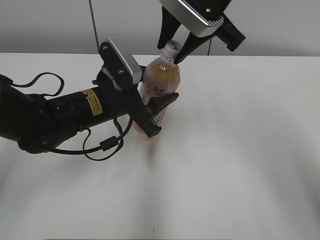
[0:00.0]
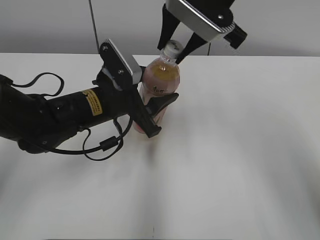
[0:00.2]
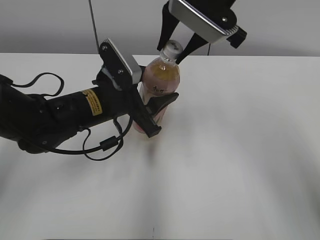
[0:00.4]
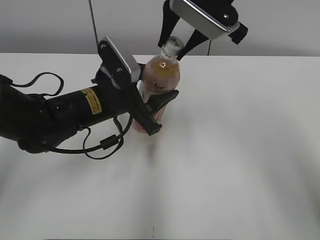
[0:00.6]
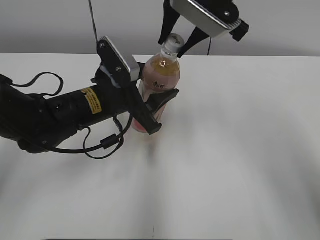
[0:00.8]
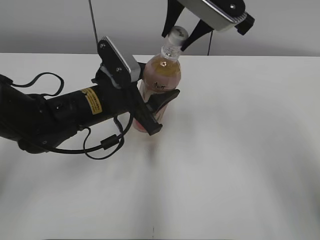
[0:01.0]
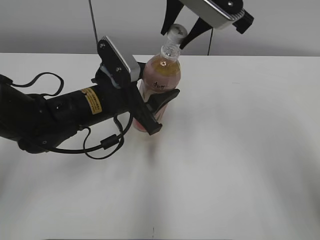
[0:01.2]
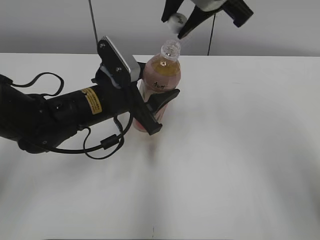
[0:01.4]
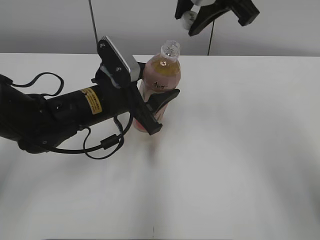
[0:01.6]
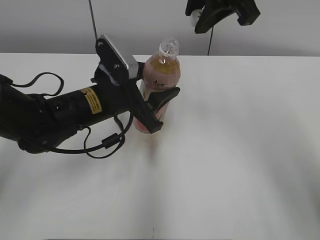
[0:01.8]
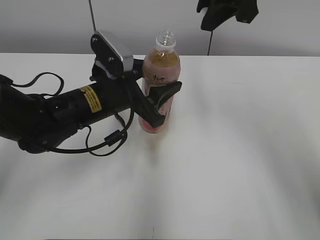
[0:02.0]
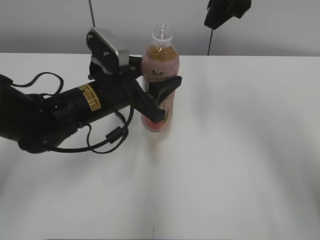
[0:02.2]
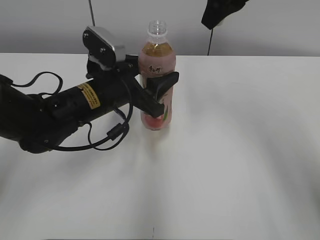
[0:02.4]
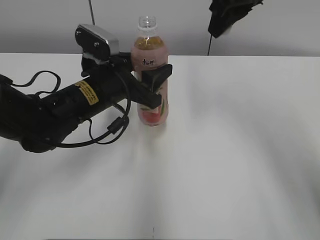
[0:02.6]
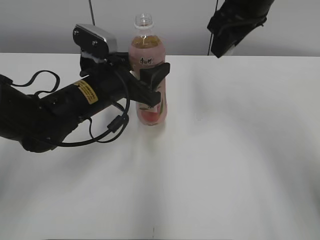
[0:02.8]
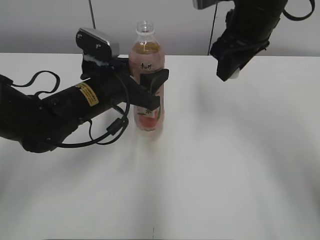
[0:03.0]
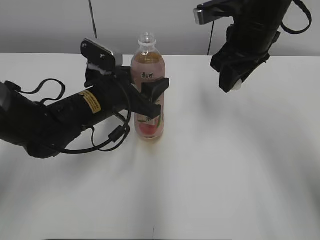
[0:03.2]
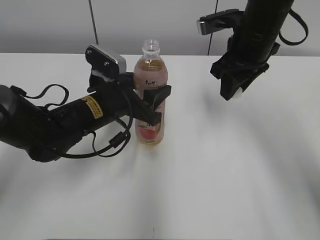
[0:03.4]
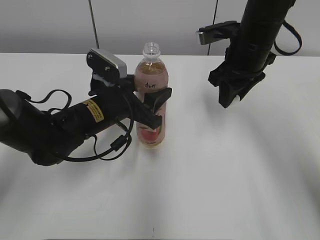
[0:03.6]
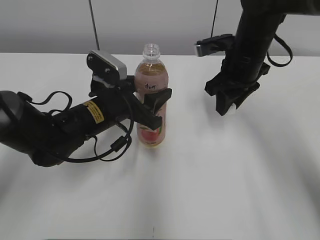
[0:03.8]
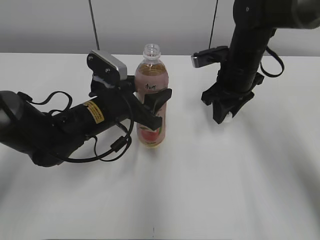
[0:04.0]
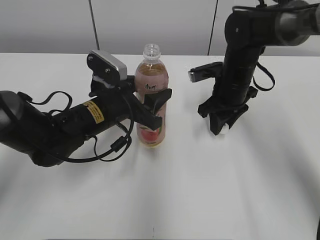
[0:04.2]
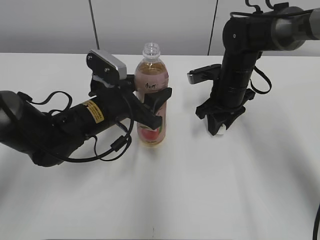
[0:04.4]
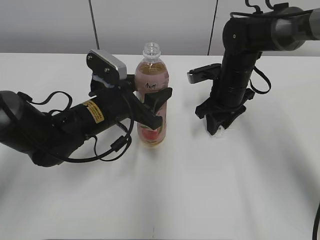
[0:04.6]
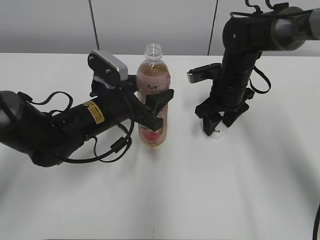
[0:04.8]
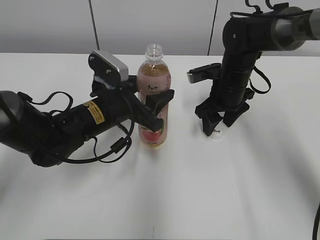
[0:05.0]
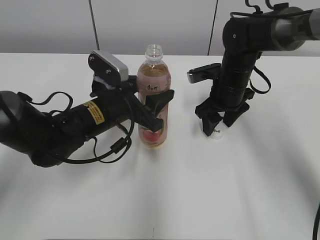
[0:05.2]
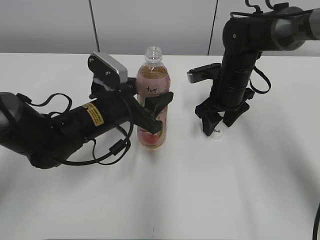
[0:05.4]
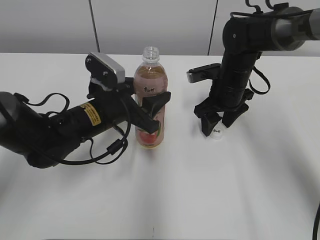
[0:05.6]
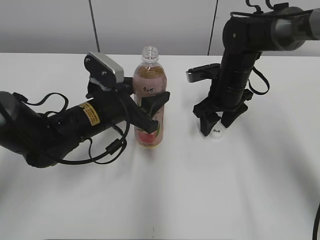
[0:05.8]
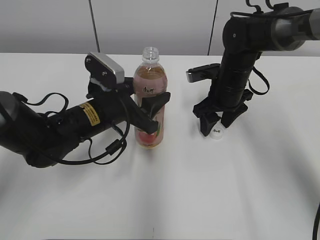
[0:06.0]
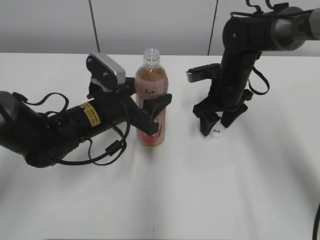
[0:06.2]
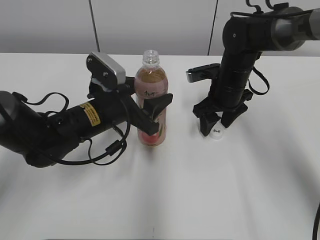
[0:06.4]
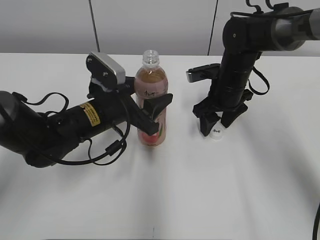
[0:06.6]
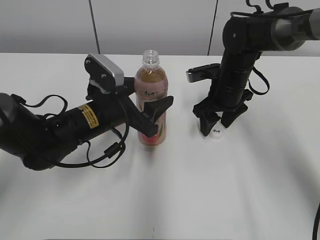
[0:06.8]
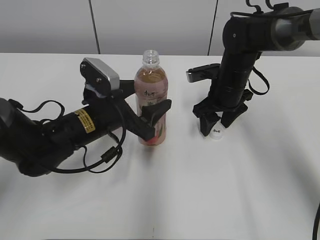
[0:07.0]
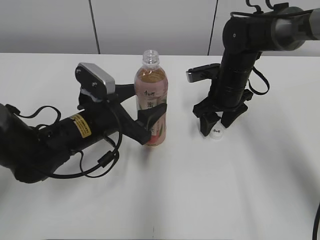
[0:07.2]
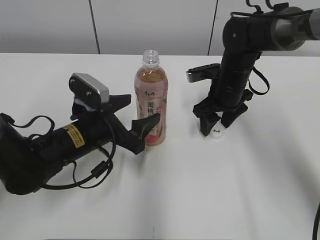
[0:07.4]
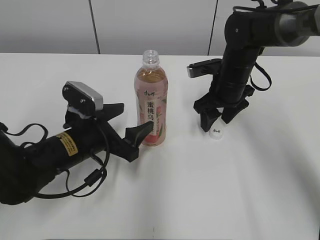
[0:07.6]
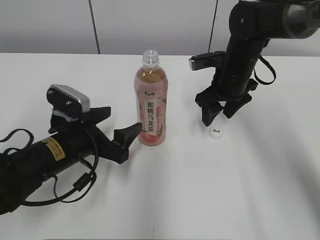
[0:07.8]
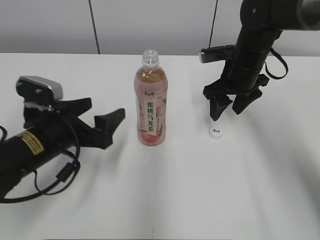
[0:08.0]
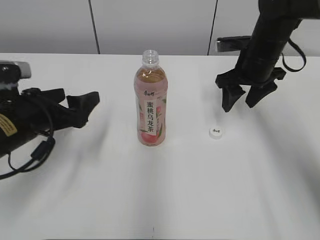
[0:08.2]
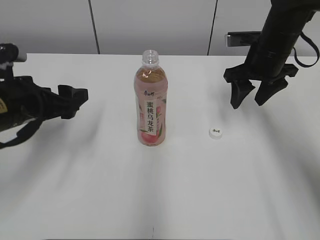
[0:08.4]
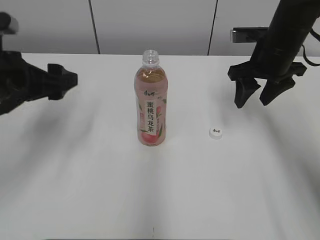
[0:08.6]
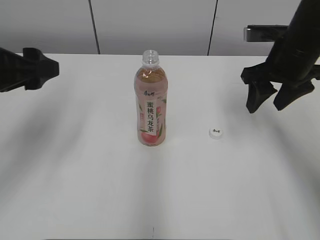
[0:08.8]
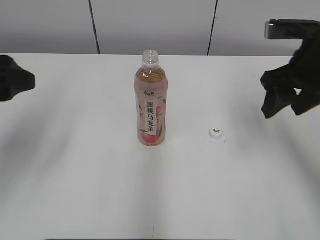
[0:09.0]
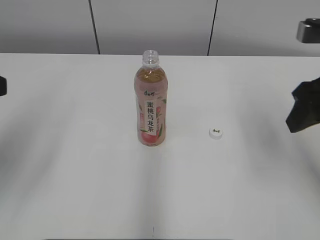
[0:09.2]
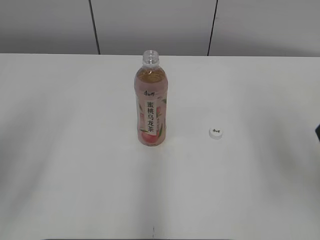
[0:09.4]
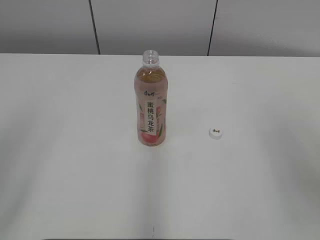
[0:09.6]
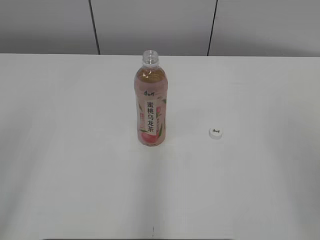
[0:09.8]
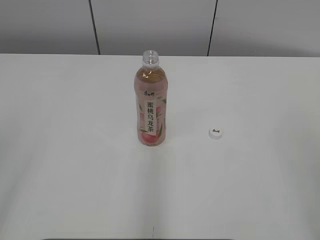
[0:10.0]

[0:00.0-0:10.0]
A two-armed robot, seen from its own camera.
Step, 0:01.2 to 0:05.8: Place the bottle cap on the right.
Step, 0:06.0 to 0:07.2: Place the Peach Oolong Tea with the left hand.
0:00.0 to 0:01.4: The grippers make only small movements.
0:01.4 to 0:02.8: The right gripper heads to the right, covering some 5 cm.
0:02.8 to 0:04.2: The right gripper is displaced downward by roughly 20 cm.
0:04.2 to 0:05.8: The right gripper opens up.
0:05.8 to 0:07.2: The left gripper opens.
0:07.2 to 0:08.6: The left gripper heads to the left and upward, covering about 15 cm. The right gripper is displaced upward and to the right by roughly 10 cm.
0:08.6 to 0:10.0: The two grippers go roughly 30 cm backward and upward.

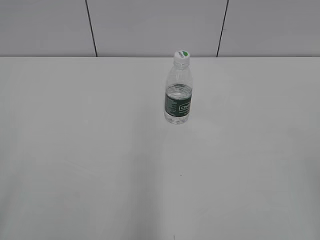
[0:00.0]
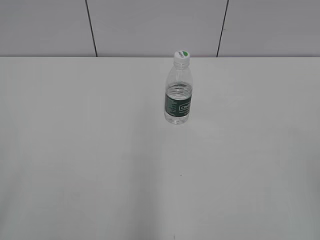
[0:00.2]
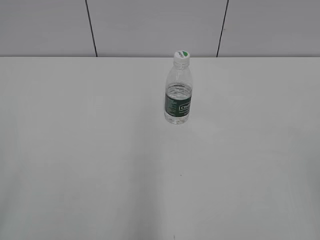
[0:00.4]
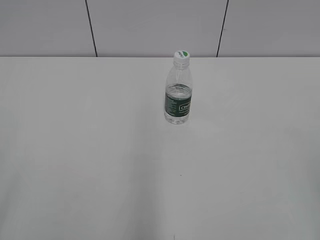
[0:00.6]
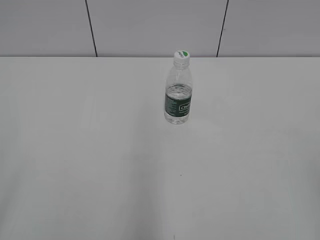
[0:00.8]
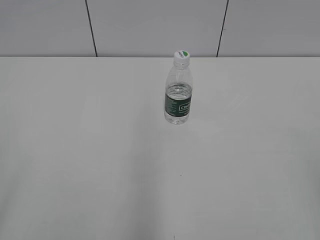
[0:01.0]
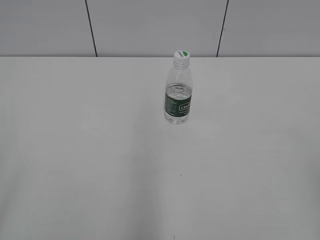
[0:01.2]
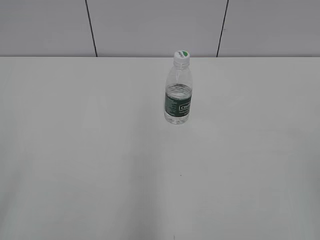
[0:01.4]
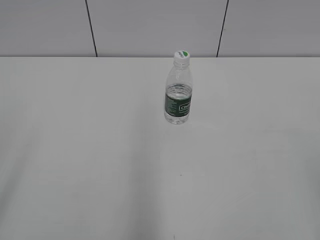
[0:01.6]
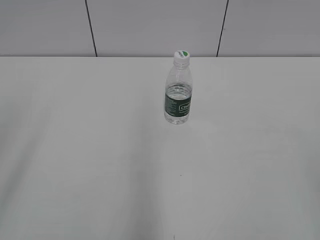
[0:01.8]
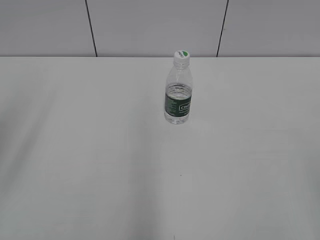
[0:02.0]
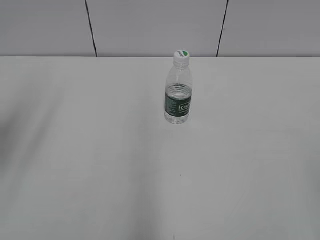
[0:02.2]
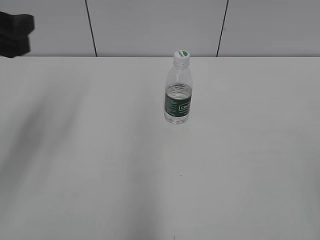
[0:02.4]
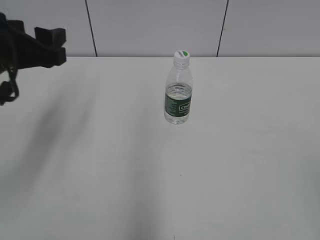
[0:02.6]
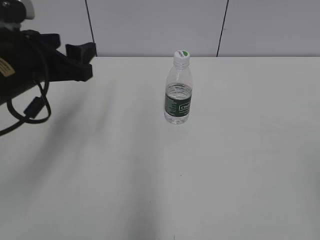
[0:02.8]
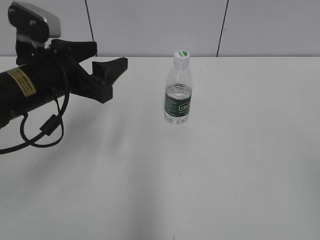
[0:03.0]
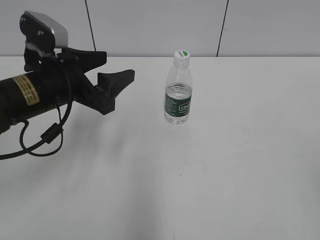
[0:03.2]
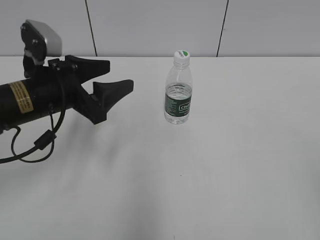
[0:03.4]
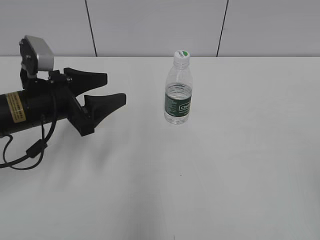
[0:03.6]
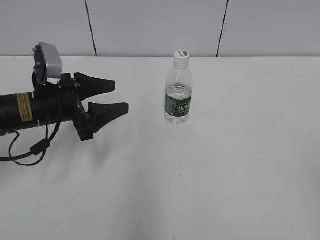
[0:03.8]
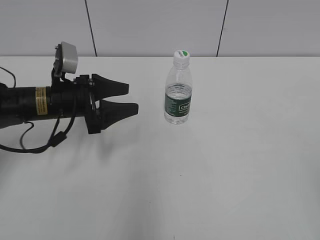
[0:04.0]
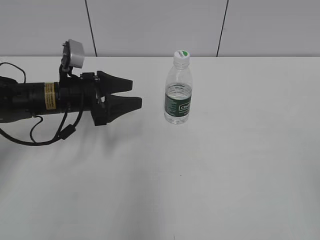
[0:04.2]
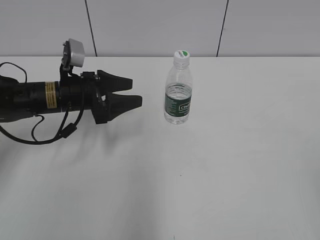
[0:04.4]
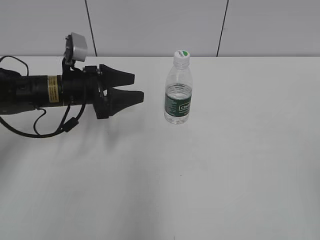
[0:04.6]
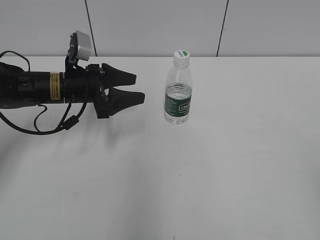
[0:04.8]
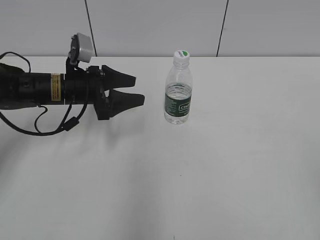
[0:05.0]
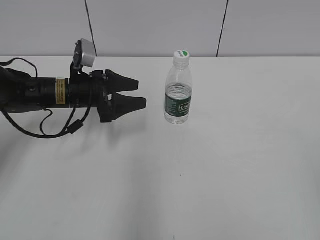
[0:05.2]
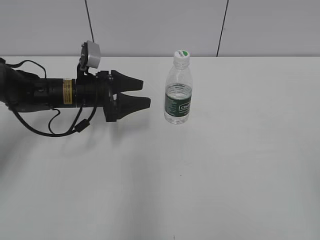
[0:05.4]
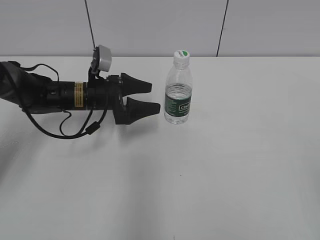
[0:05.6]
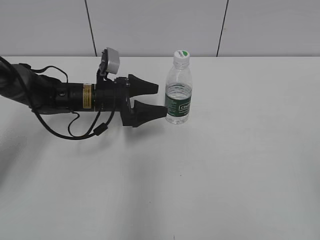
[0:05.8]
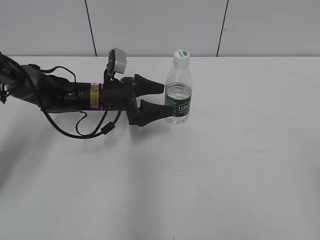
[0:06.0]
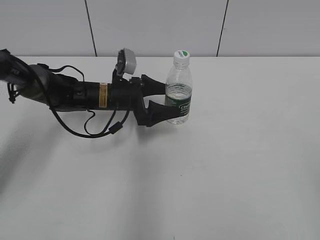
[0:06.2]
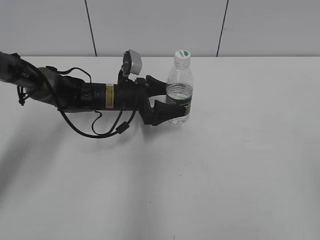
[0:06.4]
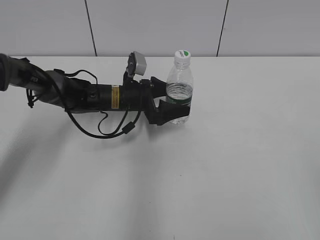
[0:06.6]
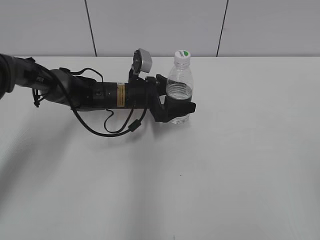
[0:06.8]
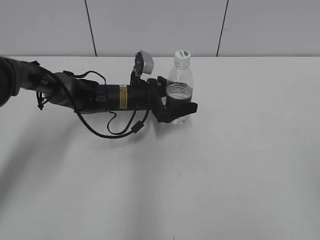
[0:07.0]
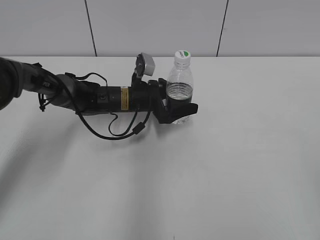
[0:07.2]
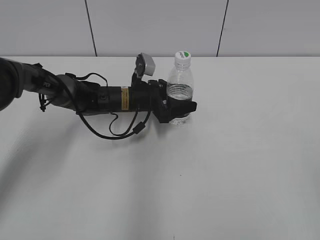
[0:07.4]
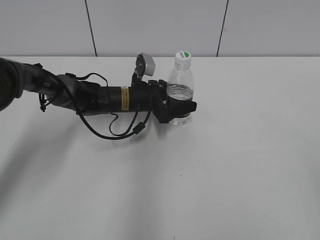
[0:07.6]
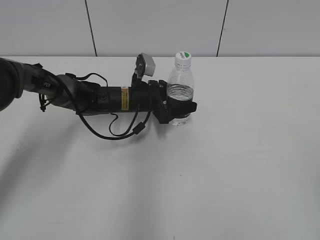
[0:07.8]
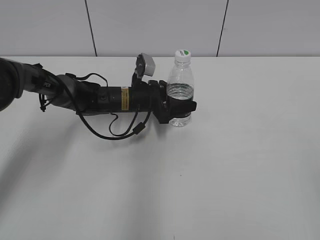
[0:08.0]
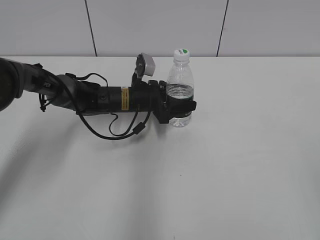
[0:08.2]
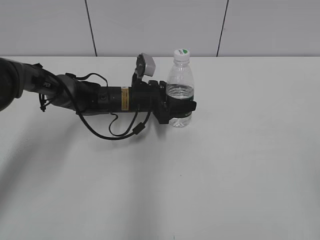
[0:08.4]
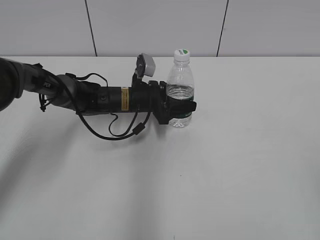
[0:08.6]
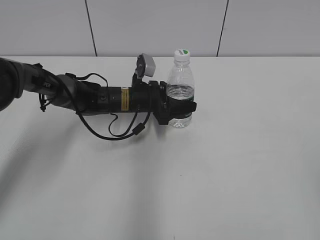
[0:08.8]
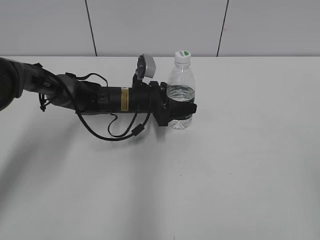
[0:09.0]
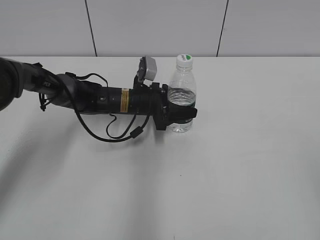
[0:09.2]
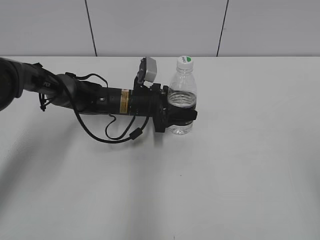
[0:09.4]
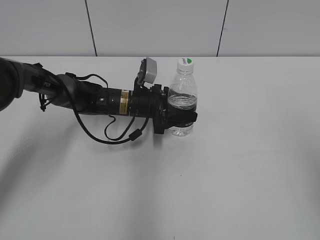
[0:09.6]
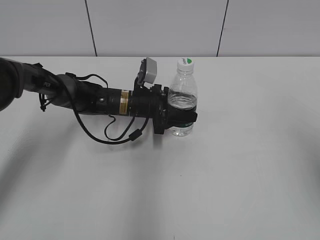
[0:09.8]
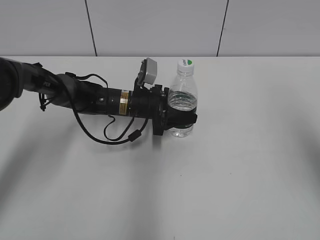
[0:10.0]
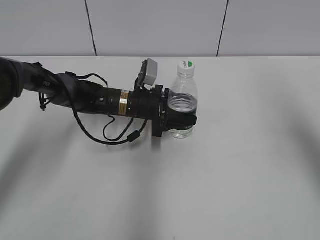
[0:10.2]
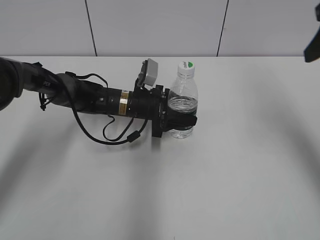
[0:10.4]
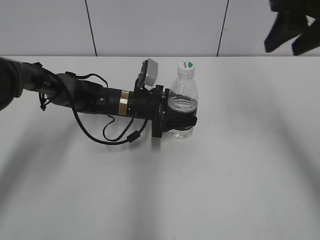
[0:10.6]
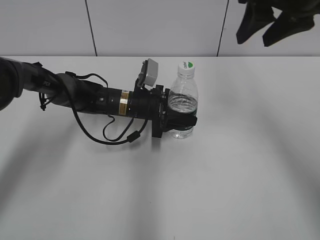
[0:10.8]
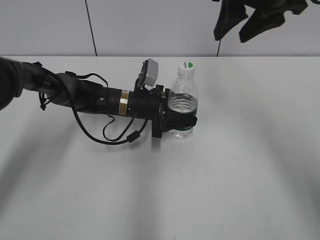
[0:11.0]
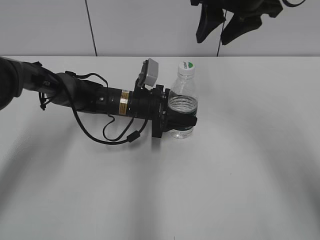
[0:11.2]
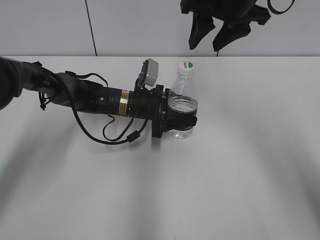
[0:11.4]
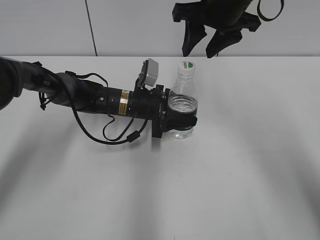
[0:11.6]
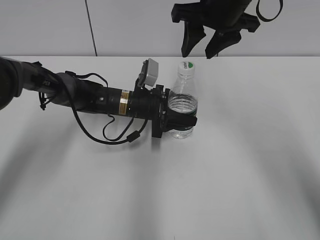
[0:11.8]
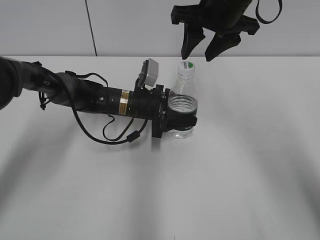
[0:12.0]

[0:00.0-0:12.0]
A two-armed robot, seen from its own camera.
Step, 0:00.0 to 0:10.6: Grasp the bottle and move it to the center of the table with the left gripper.
0:01.6 to 0:03.0: The left gripper is displaced forward, to the right and downward by roughly 30 cm.
0:03.0 to 0:04.4: The left gripper heads downward and forward, covering roughly 10 cm.
0:04.4 to 0:06.0: The left gripper shifts approximately 5 cm to the right, and opens up.
0:06.0 to 0:07.6: The left gripper goes approximately 5 cm to the right, and closes up.
0:07.6 to 0:09.0: Both grippers stay put.
0:09.0 to 0:10.4: The right gripper goes approximately 30 cm forward.
0:10.4 to 0:12.0: The right gripper moves to the left and forward, roughly 20 cm.
